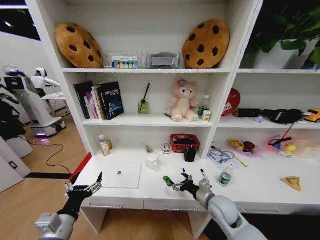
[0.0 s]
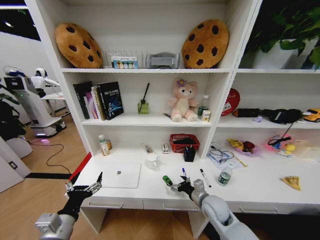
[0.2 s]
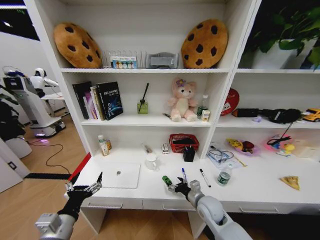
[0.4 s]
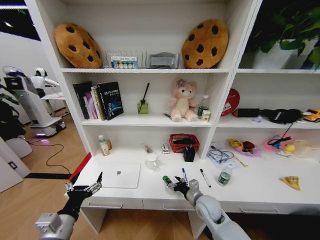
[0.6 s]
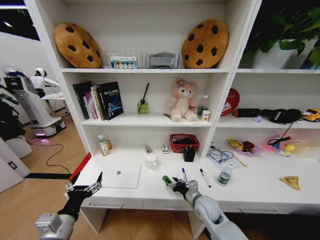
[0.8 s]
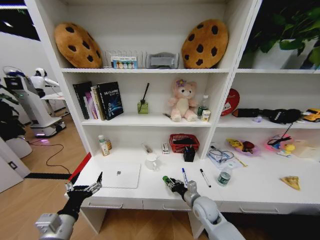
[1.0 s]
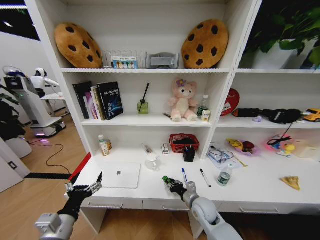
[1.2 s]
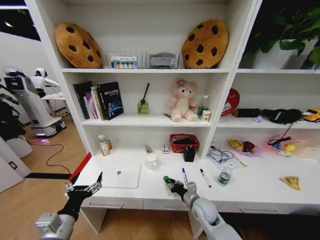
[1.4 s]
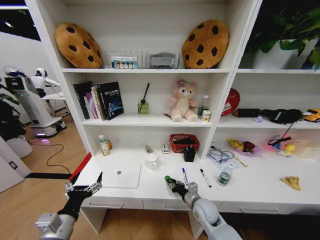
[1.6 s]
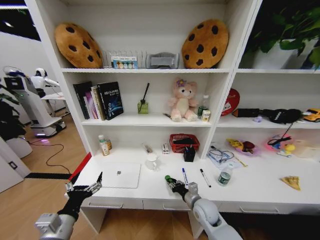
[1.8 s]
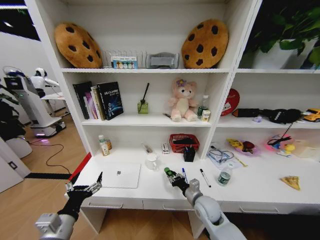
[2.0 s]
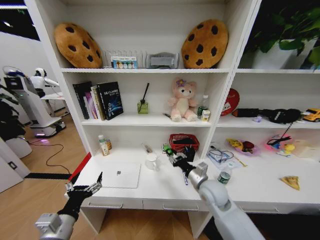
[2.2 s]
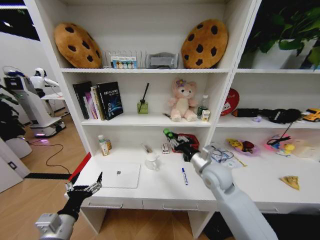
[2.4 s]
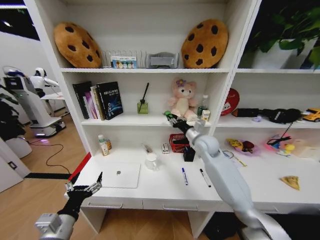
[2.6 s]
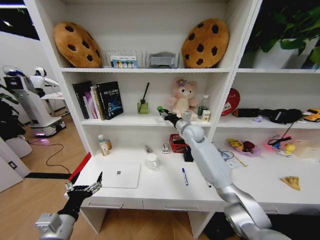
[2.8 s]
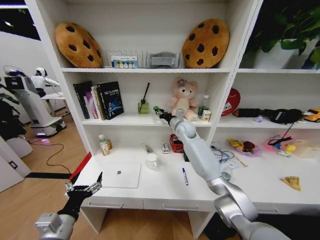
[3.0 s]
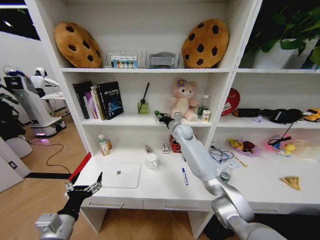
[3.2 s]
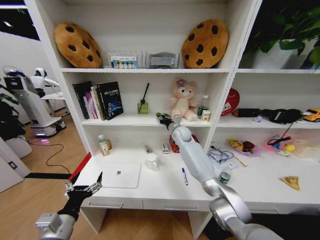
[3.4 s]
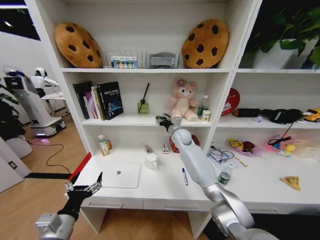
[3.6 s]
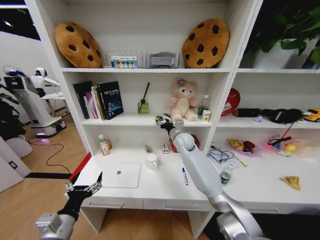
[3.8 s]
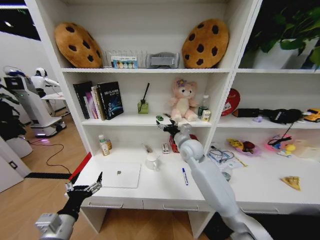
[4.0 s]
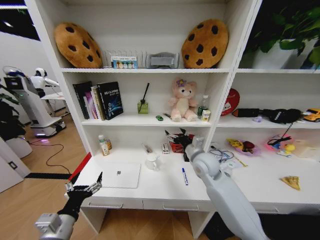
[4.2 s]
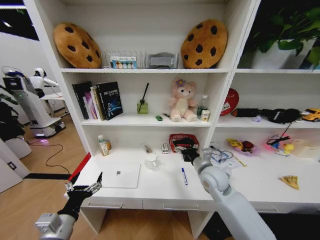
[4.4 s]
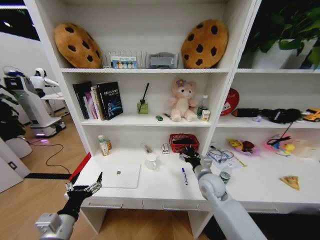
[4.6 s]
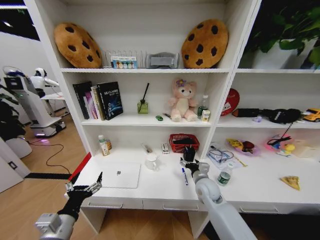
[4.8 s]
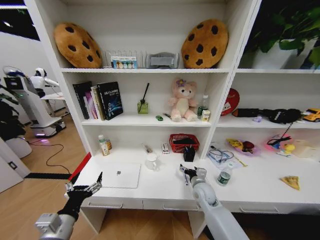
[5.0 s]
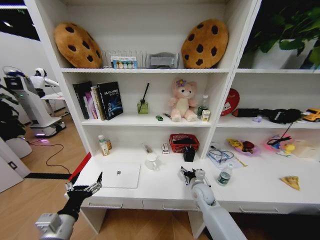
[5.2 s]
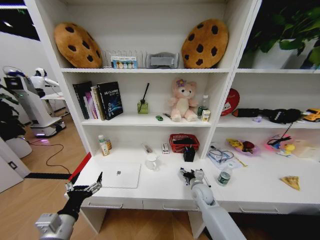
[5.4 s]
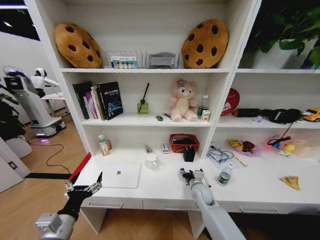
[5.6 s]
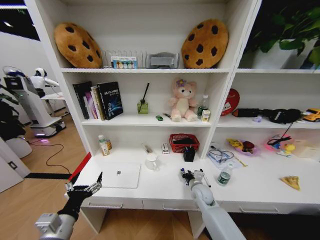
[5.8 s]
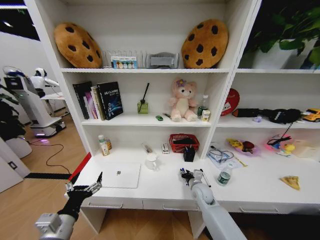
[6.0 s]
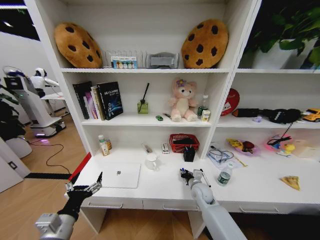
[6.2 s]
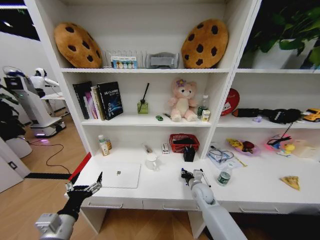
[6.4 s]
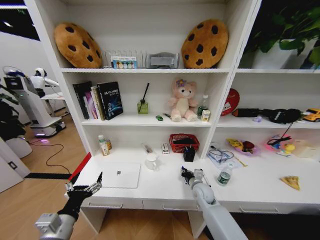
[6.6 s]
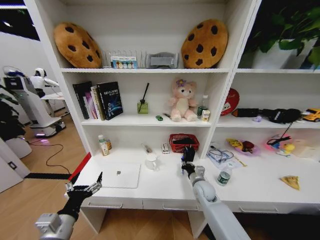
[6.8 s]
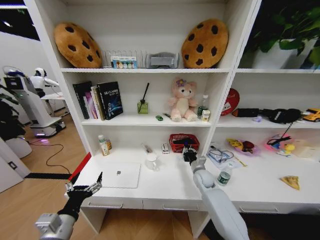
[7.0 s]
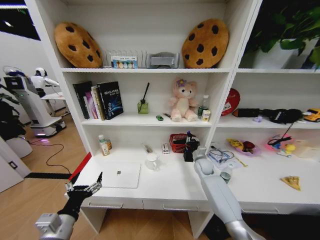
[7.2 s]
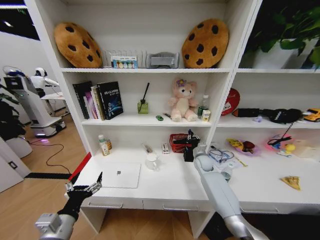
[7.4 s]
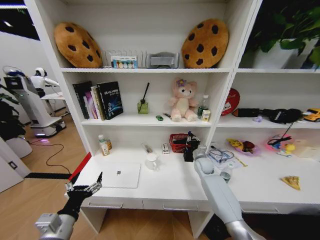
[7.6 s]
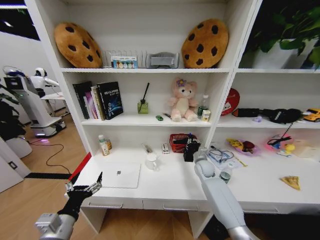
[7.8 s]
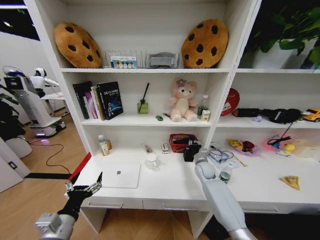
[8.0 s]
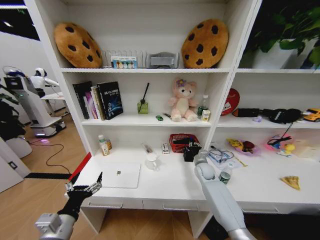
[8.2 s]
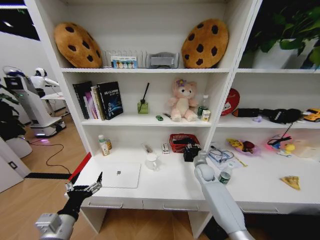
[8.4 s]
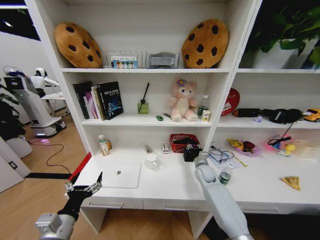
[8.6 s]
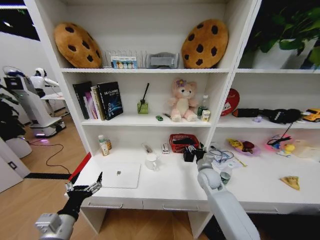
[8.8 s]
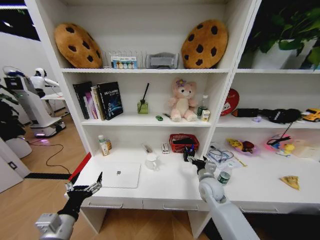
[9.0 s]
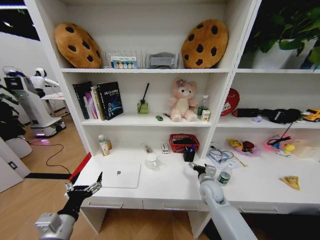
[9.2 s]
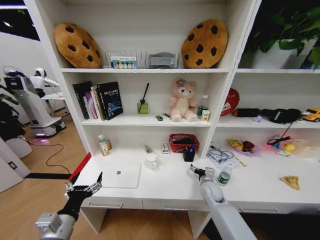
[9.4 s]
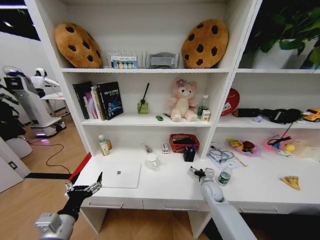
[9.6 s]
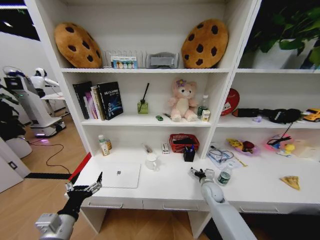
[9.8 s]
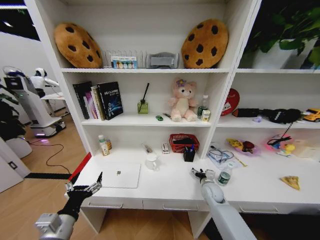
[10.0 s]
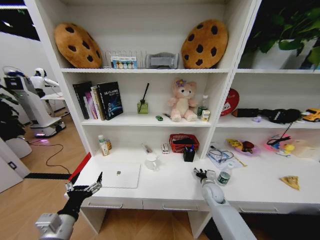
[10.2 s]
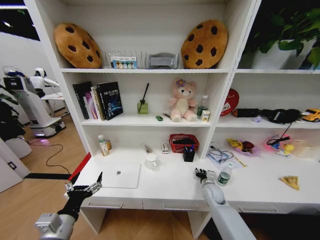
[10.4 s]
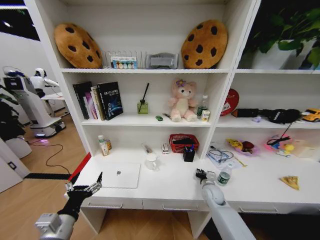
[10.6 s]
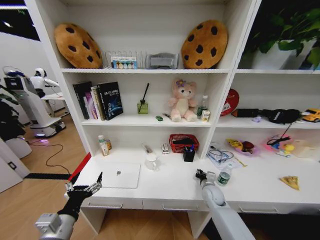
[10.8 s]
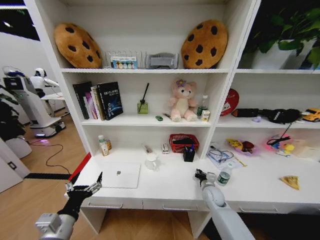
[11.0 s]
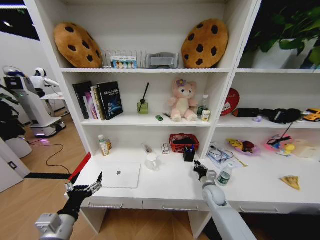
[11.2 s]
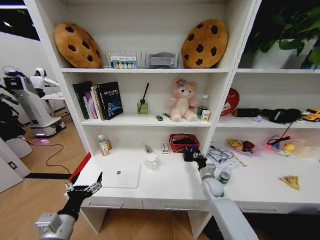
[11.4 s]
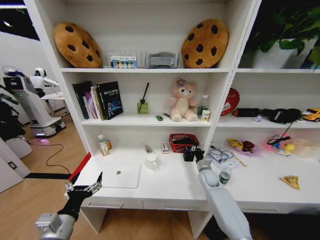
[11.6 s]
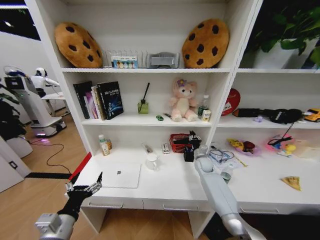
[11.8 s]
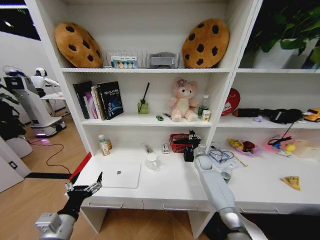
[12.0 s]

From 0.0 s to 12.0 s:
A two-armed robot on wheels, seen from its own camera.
Task of the whole recording: Organize the objects on the table.
From 0.0 s to 1.6 s: The right gripper shifts approximately 5 cm downward, and closes.
From 1.6 s to 3.0 s: The right gripper travels forward and upward by roughly 35 cm.
From 3.0 s to 4.4 s: The right gripper moves backward, roughly 25 cm, and opens its fingers.
From 4.4 s to 6.0 s: The right gripper is displaced downward by about 15 cm, and closes up.
From 6.0 s to 7.6 s: The right gripper is displaced forward by some 15 cm, and closes.
From 7.6 s to 9.0 s: The right gripper travels backward by roughly 15 cm, and opens.
From 9.0 s to 10.4 s: The right gripper shifts approximately 10 cm downward and to the right, and closes its fingers.
From 10.4 s to 12.0 s: The right gripper travels forward by about 15 cm, and closes up.

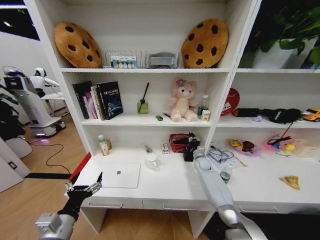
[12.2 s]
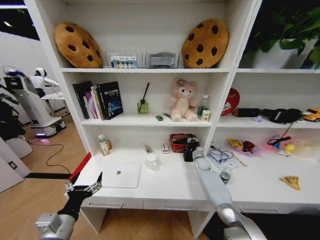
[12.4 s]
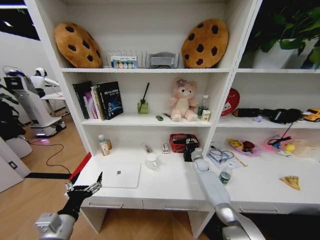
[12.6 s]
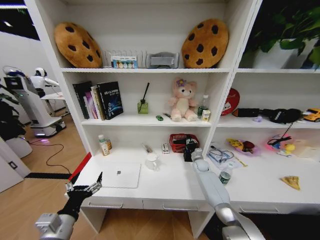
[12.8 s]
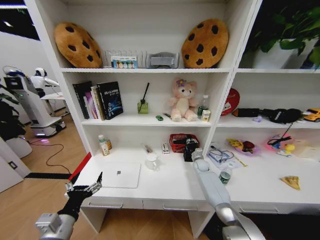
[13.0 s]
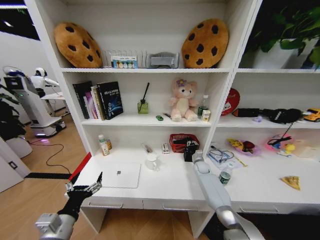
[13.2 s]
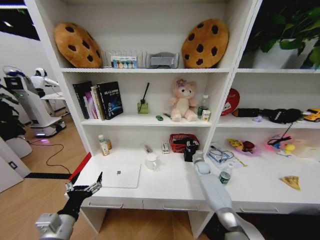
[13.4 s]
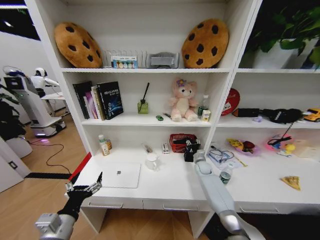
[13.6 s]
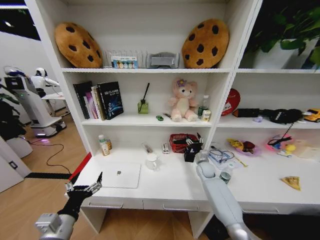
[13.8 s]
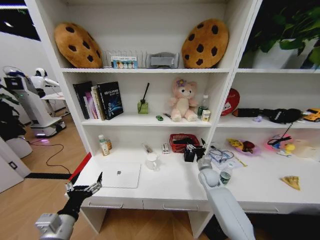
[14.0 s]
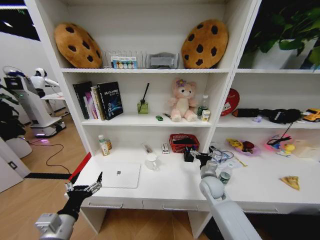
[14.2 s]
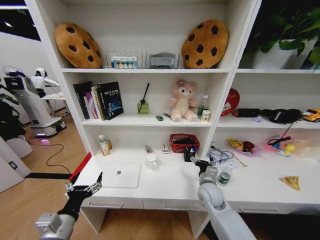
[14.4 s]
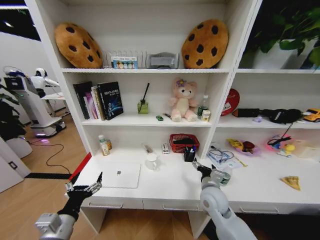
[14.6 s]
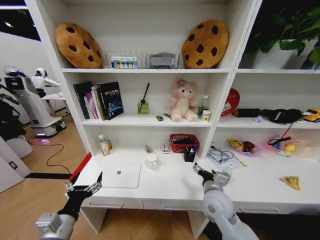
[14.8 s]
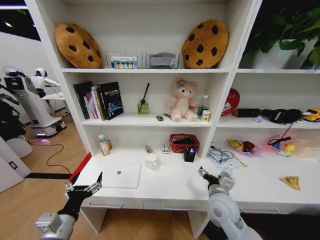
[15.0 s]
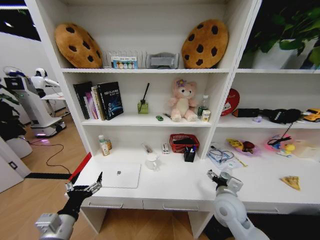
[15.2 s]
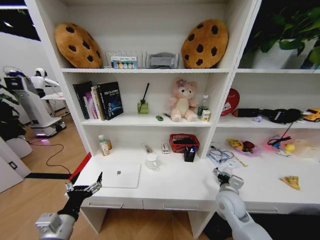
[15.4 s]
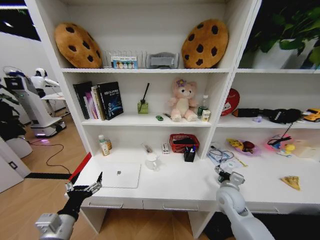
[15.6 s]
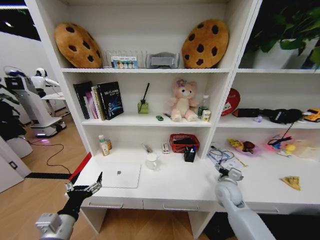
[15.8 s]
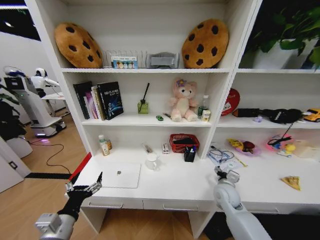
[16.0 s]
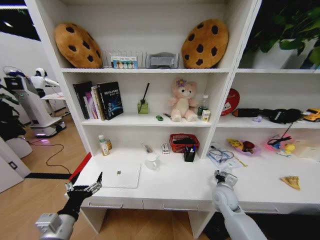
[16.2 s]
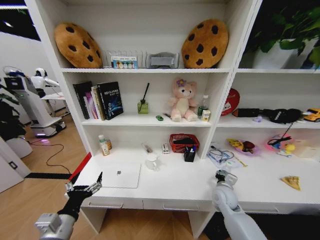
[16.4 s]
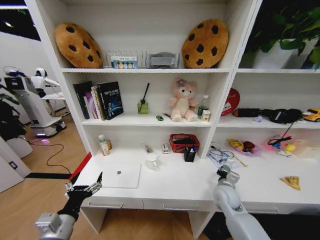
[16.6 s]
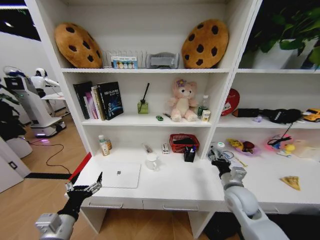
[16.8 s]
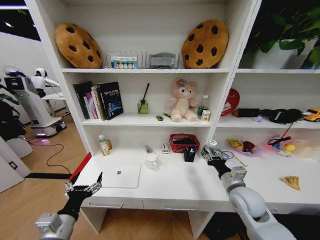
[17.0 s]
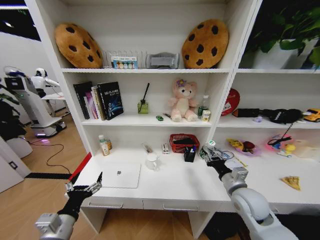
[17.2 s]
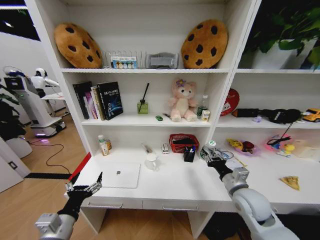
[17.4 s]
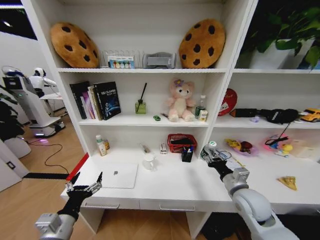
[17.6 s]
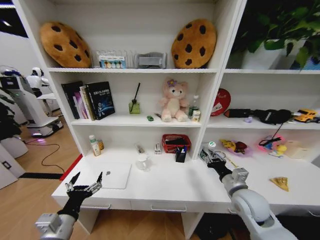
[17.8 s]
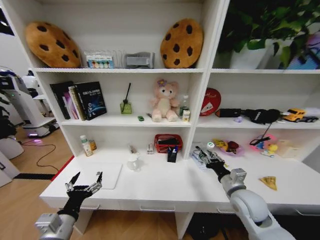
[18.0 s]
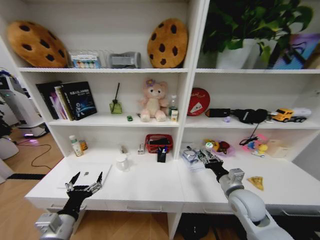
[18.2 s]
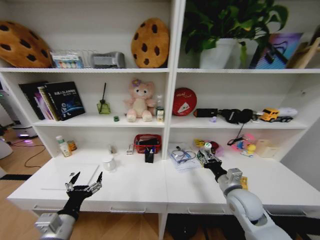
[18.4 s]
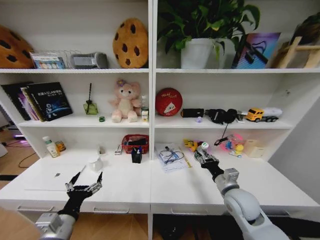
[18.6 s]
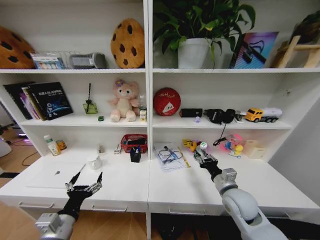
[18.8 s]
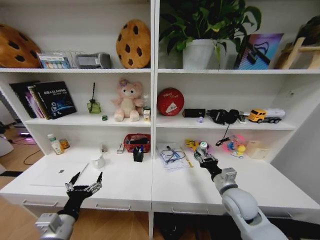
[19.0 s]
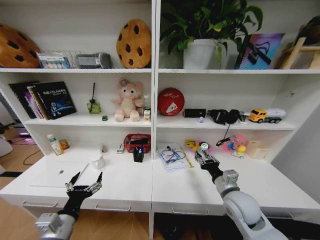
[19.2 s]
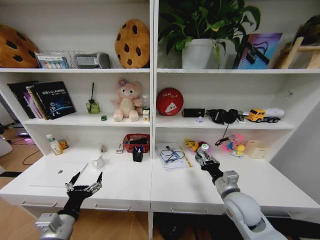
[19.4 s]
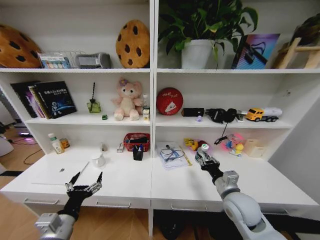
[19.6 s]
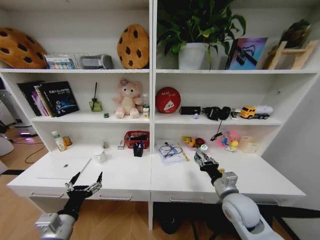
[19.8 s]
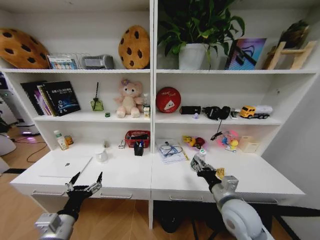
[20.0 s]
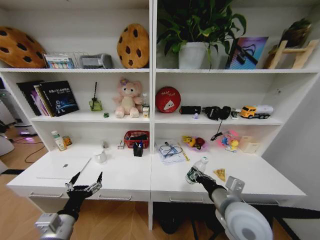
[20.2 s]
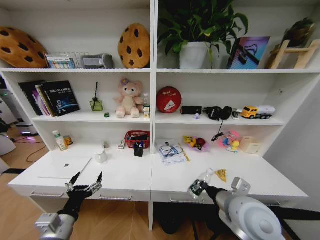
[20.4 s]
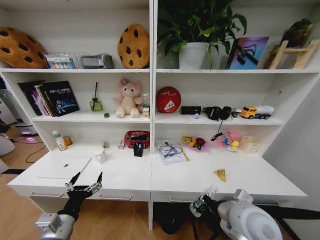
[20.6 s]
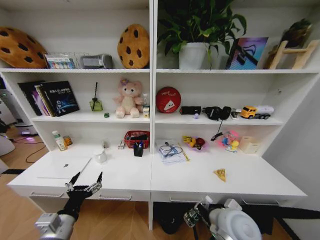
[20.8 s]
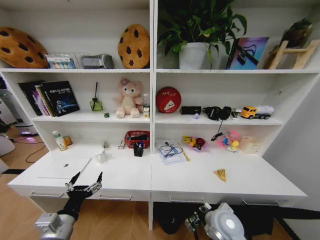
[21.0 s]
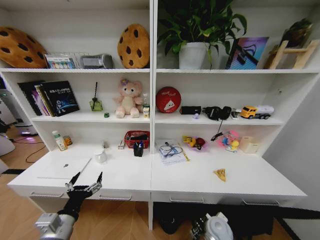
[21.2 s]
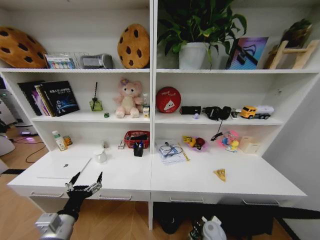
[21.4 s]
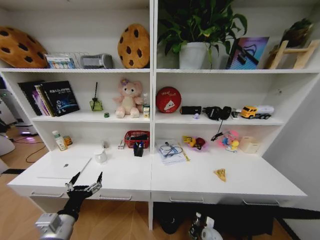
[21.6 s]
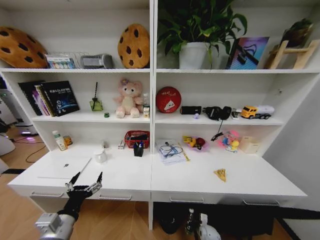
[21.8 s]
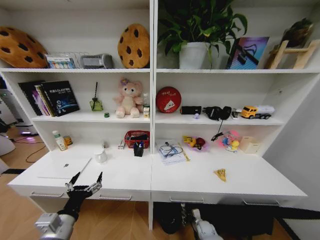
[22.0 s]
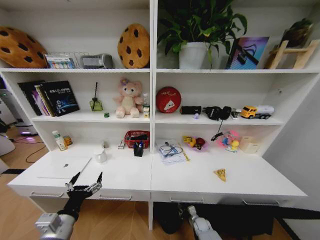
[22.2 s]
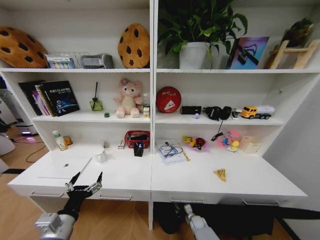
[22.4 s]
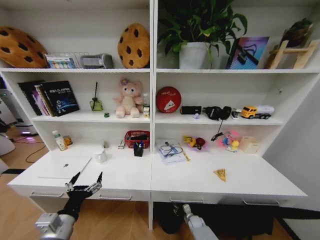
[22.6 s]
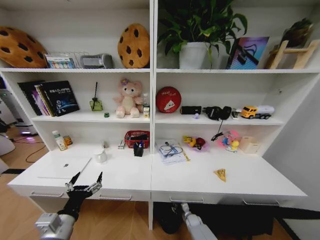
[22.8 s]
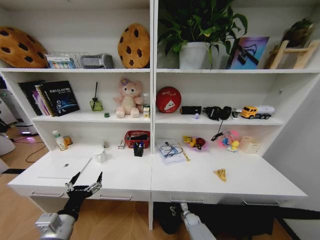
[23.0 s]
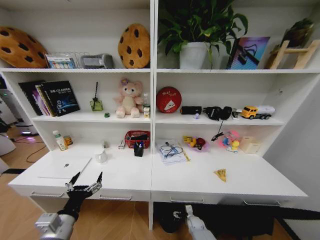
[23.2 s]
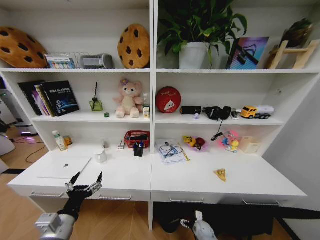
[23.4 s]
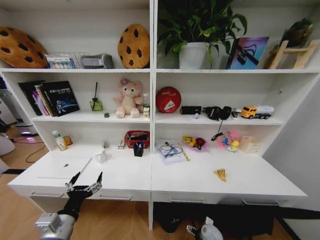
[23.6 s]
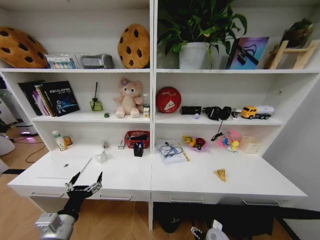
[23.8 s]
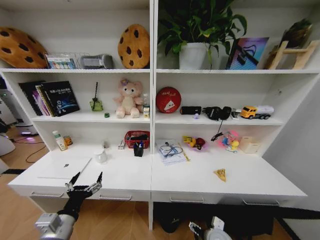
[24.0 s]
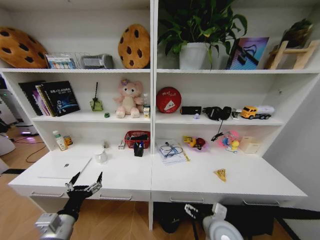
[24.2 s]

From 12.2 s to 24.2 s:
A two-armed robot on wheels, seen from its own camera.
Task of the whole recording: Organize the objects on the table.
From 12.2 s to 13.8 s: The right gripper opens up.
From 13.8 s to 15.2 s: The right gripper shifts roughly 25 cm backward and upward.
From 15.2 s to 16.6 s: The right gripper is displaced forward, to the right and downward by some 10 cm, and closes.
From 16.6 s to 18.2 s: The right gripper is displaced upward and backward by some 10 cm.
From 19.8 s to 21.2 s: The right gripper heads downward, covering approximately 15 cm.
From 21.2 s to 22.6 s: The right gripper is displaced downward by about 25 cm.
From 22.6 s to 24.2 s: The right gripper shifts about 40 cm upward, and opens its fingers.
